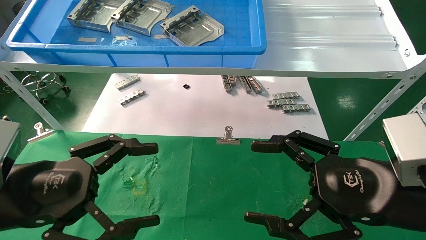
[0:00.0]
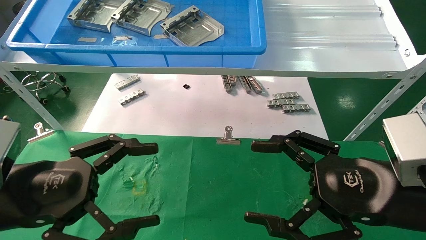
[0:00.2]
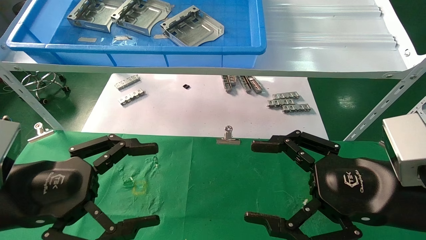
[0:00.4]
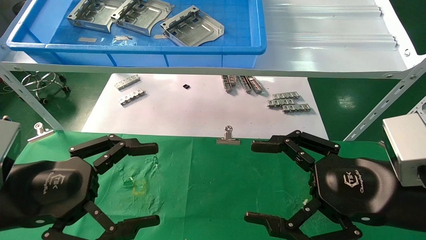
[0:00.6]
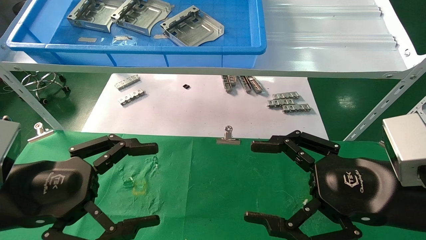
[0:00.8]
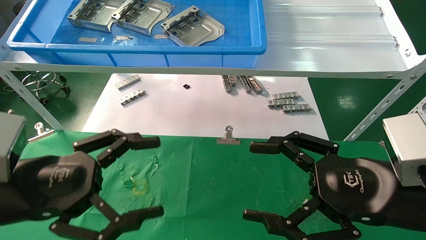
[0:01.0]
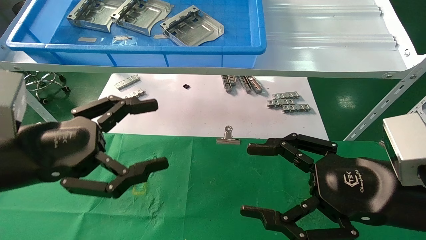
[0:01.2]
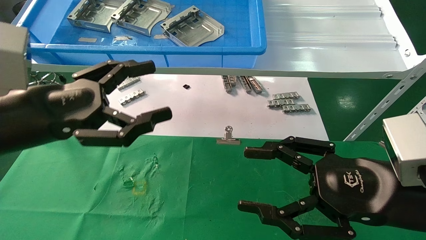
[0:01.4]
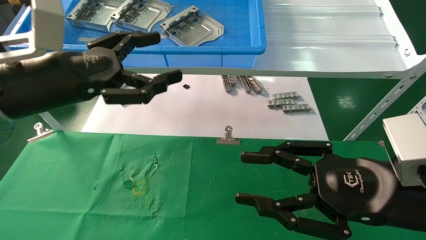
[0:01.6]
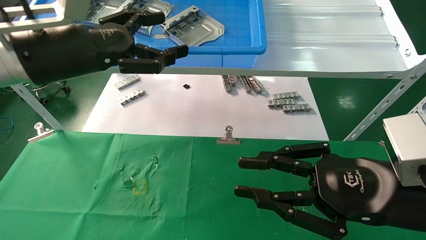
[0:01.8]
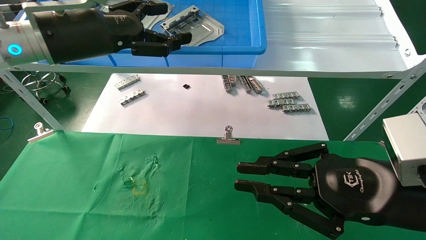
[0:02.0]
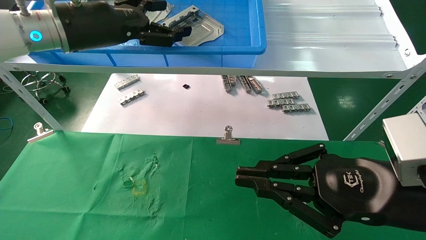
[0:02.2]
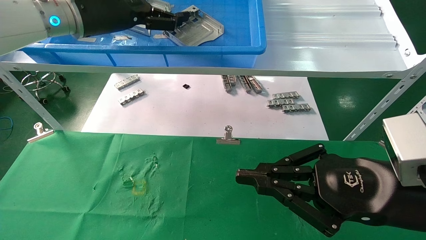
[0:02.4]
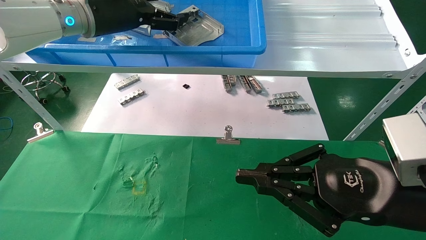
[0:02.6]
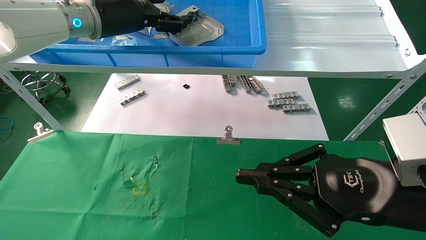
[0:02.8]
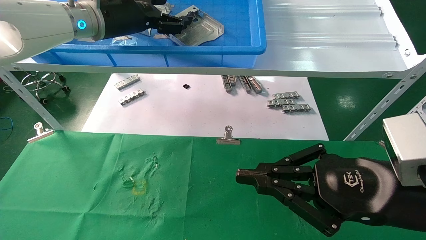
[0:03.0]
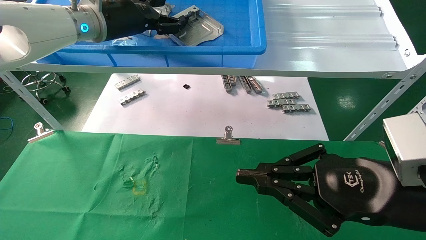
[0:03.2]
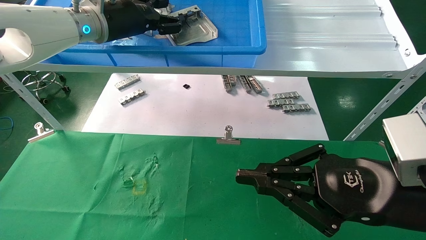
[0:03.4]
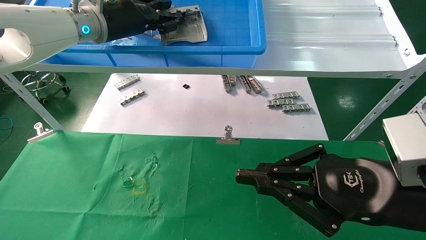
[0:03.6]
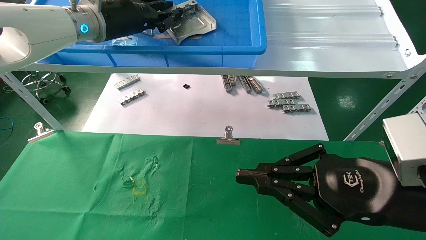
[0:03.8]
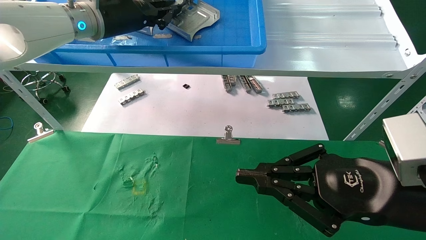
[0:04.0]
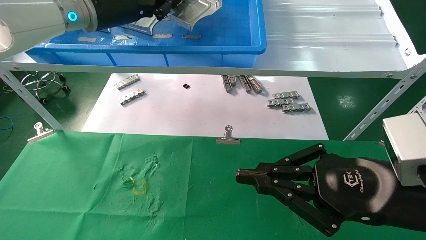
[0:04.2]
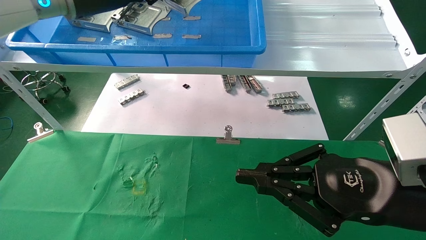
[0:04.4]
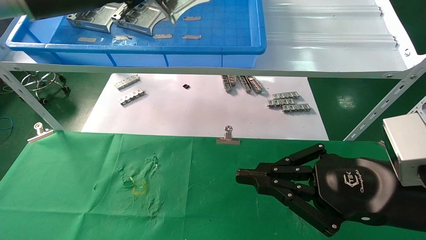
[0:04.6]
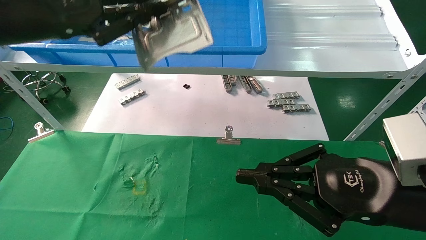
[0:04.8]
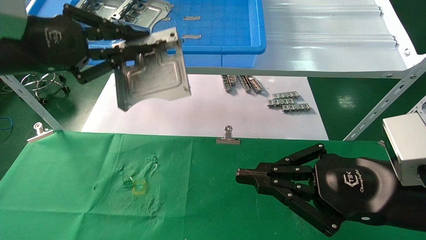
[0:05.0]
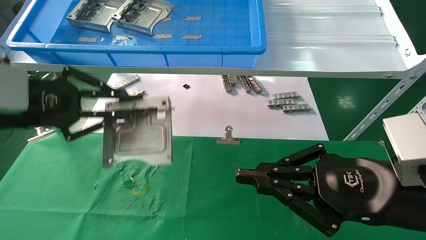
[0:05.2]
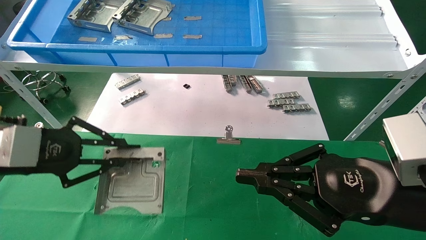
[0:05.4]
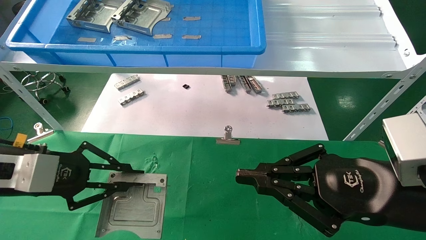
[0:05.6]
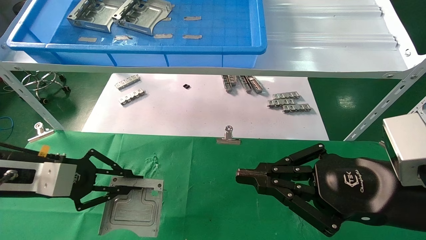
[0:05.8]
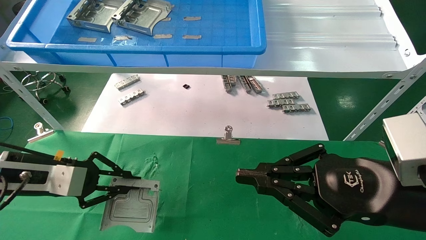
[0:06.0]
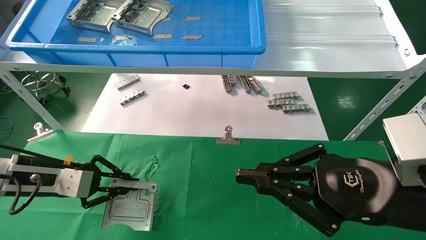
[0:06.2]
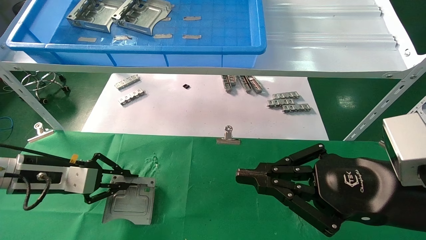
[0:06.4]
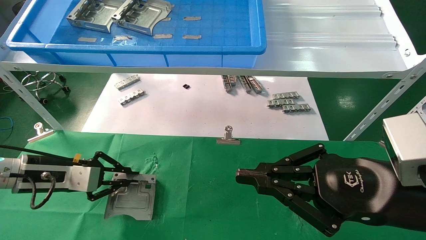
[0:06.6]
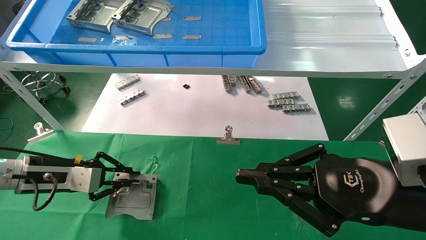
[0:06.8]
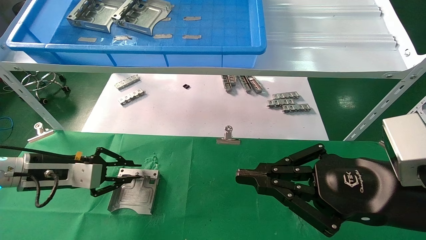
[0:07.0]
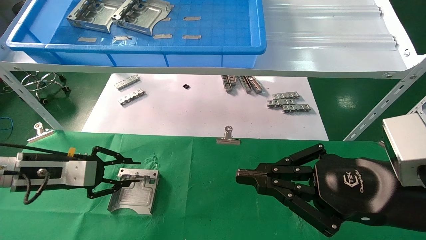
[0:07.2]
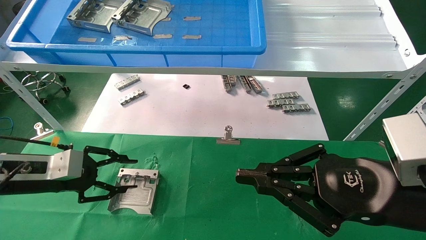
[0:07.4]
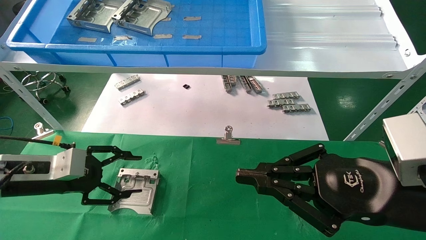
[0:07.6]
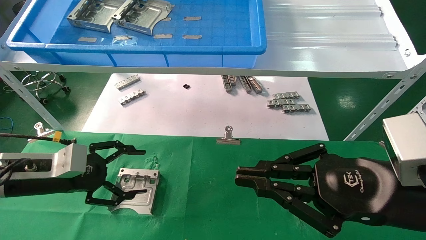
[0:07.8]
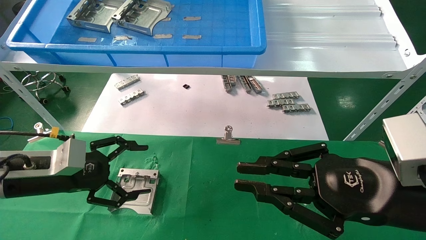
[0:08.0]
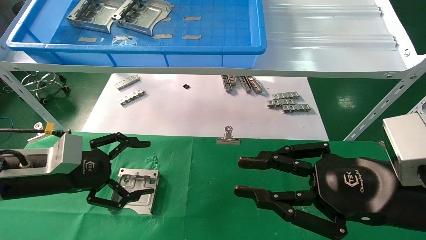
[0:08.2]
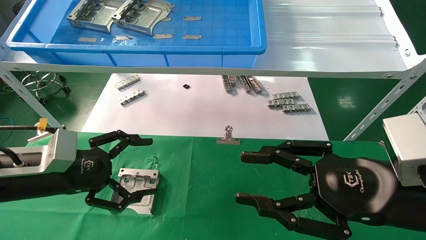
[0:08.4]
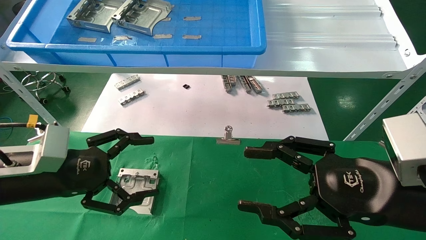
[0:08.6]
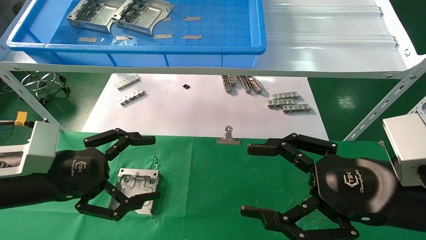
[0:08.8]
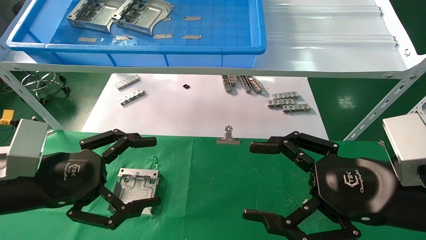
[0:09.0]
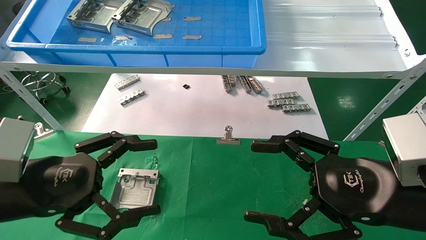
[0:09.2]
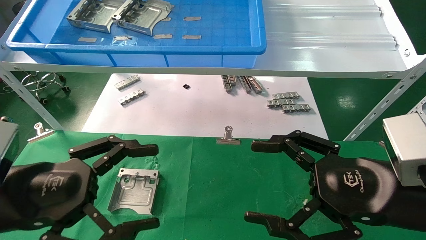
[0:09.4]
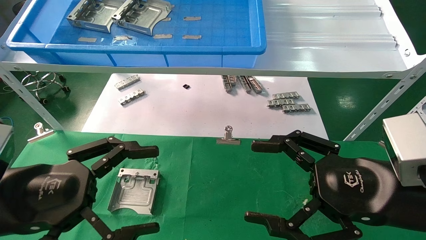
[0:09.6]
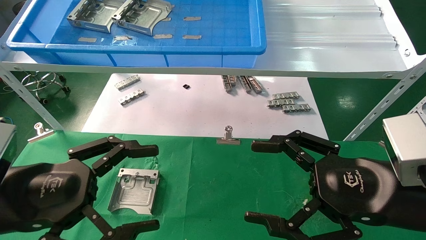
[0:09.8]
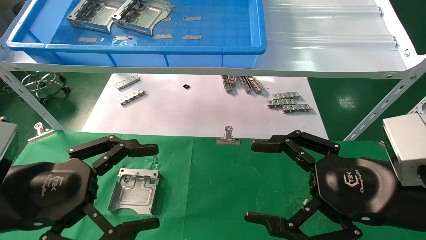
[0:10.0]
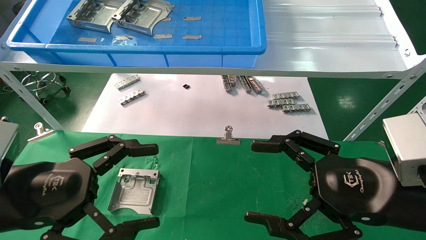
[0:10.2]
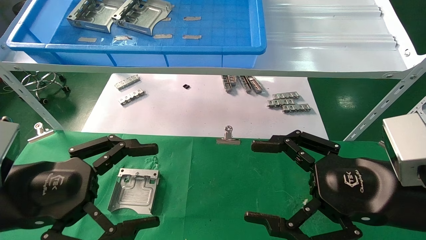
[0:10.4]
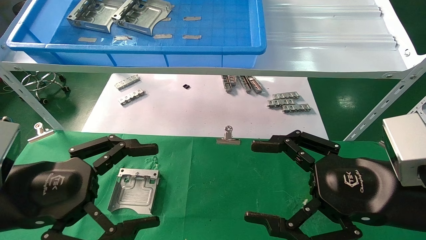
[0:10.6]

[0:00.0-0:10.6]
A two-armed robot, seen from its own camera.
Task of the whole recording: use the mechanical arm to pick up the parts and place them on the table.
Step, 0:01.4 to 0:04.0: Pick up the hard drive bracket from the feeding area.
Step, 0:04.2 to 0:07.0: Place the hard drive bracket into the box.
0:00.0 to 0:01.6: The right gripper closes up. Meanwhile the left gripper travels upward and forward by approximately 15 cm.
0:01.6 to 0:03.0: The right gripper closes up; the left gripper goes approximately 20 cm forward and upward.
0:03.0 to 0:04.6: The left gripper travels backward and to the left by roughly 10 cm, and closes its fingers.
0:04.6 to 0:06.0: The left gripper heads downward, covering approximately 25 cm.
0:06.0 to 0:07.6: The left gripper opens.
0:07.6 to 0:09.0: The right gripper opens up; the left gripper travels backward and to the right by about 10 cm, and opens its fingers.
0:09.0 to 0:10.6: There are only small adjustments of the grippers.

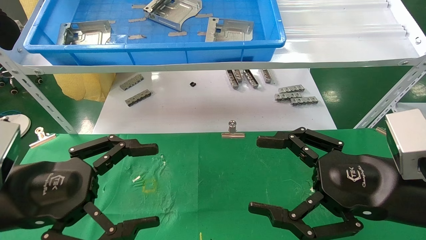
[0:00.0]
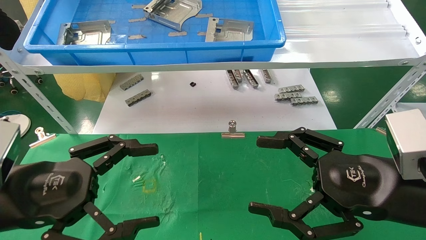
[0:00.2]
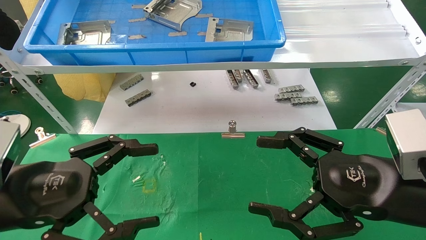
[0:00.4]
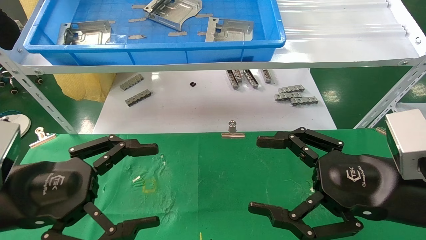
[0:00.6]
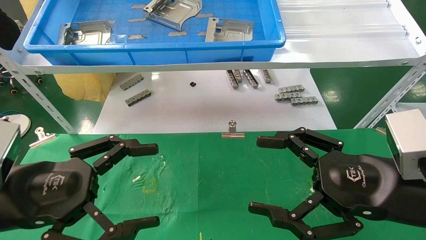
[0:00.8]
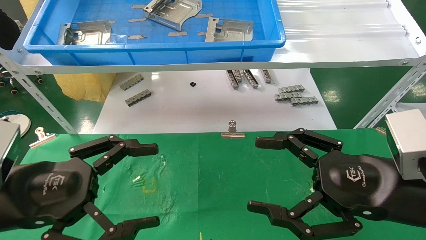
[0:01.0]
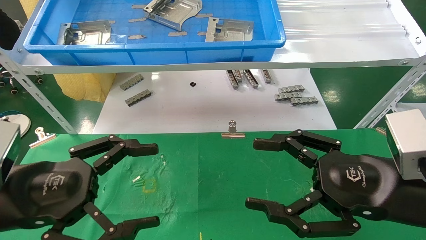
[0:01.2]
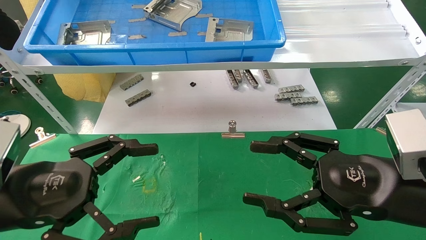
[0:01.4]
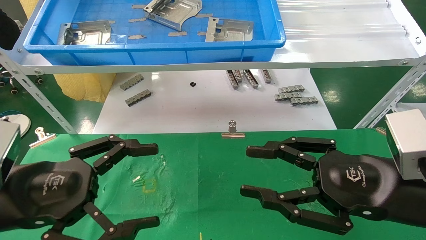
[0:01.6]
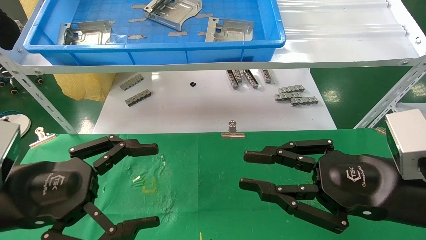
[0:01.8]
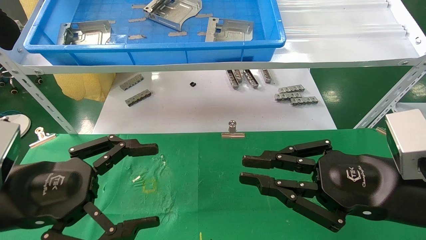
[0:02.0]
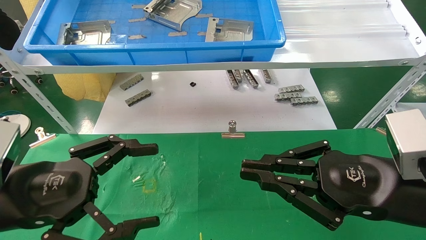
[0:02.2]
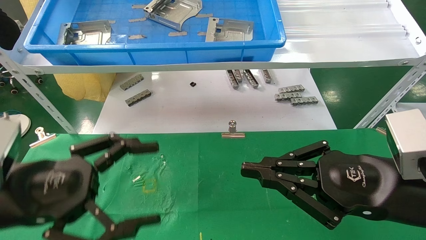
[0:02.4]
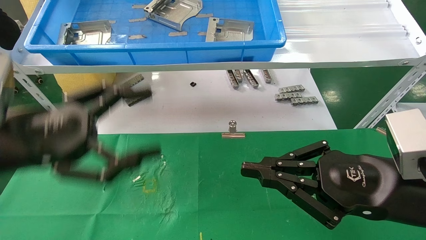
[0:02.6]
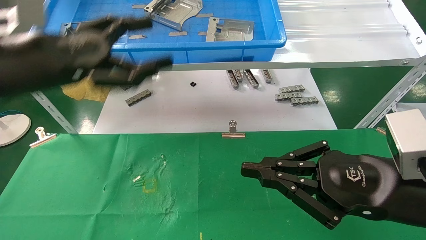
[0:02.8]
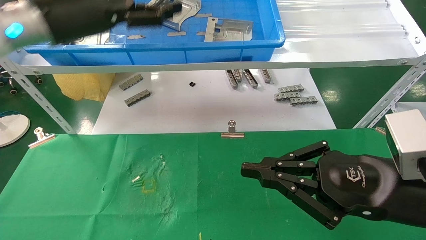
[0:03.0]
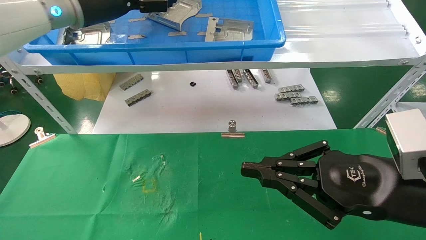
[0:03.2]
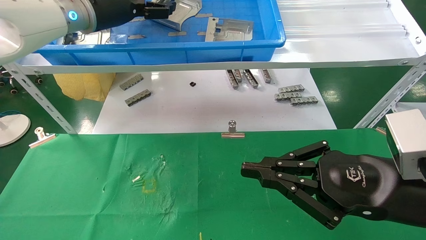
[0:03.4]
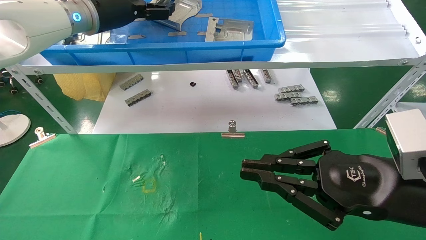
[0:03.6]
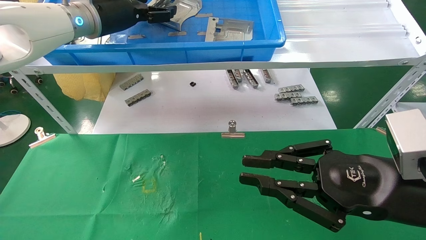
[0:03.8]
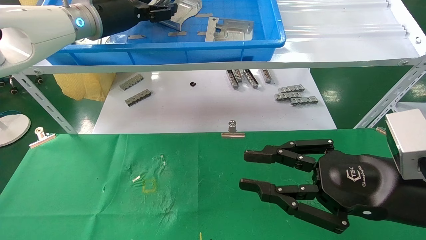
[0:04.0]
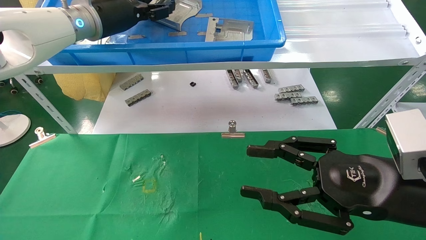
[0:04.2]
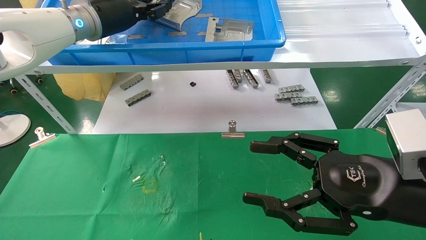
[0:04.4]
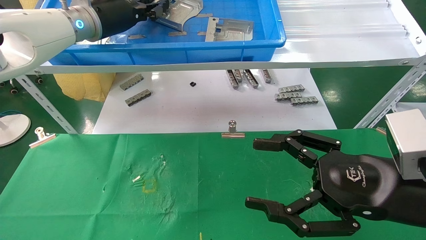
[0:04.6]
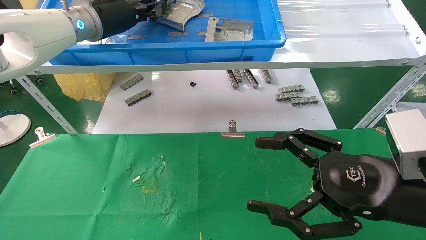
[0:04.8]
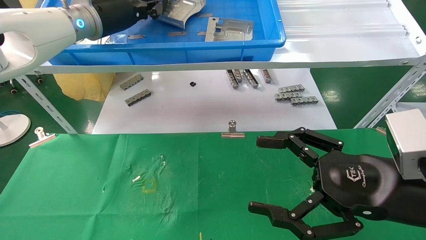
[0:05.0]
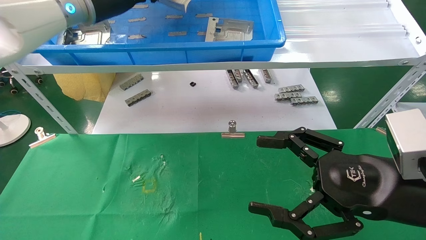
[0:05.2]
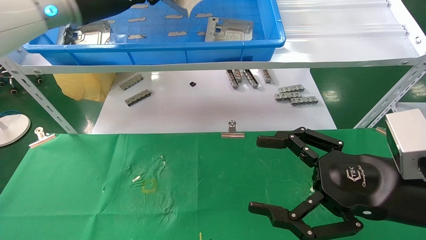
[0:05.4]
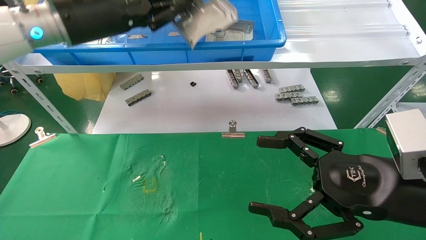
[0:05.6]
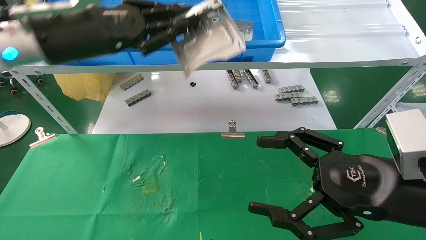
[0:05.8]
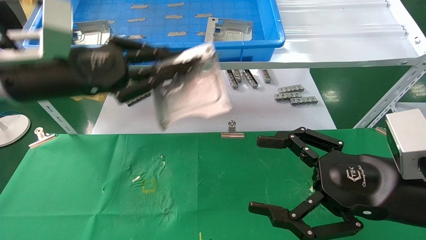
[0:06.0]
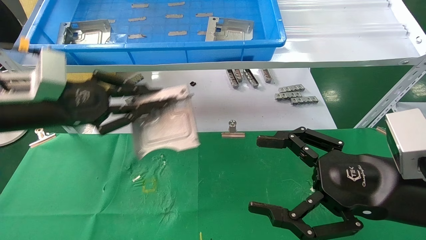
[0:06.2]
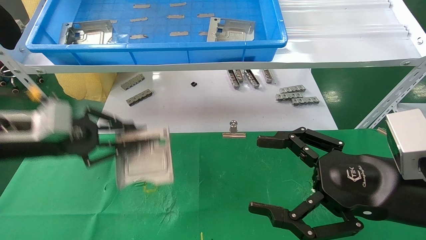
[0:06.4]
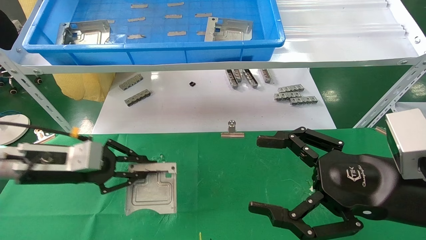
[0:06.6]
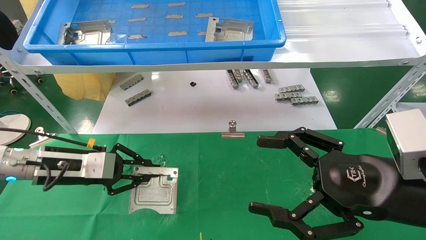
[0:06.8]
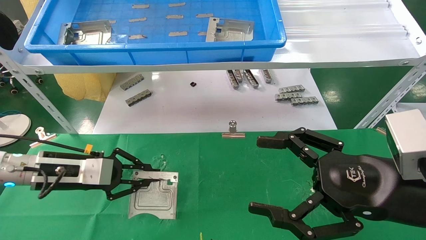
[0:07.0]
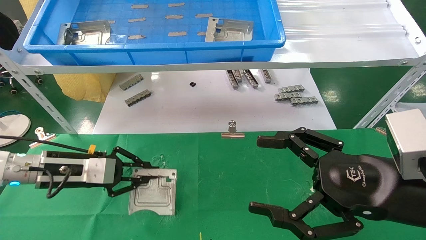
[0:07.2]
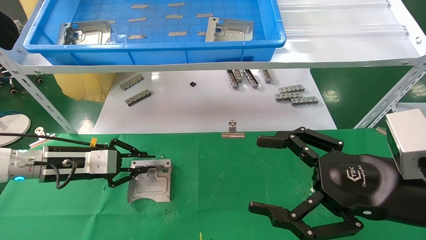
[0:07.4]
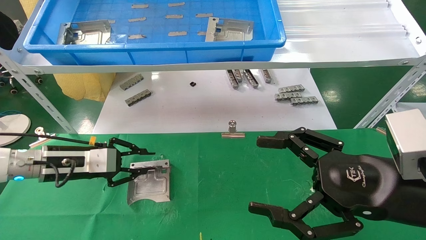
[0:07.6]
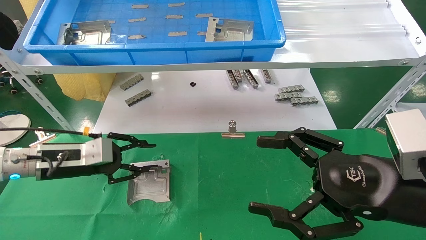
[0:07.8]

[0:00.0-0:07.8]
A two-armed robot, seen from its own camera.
Task of the whole recording: use the mechanical arm to pick up the parts and place them on the table.
Step, 0:02.4 to 0:04.6: Pick up the hard drive bracket from the feeding area.
0:00.0 to 0:01.6: The right gripper closes its fingers.
0:01.6 to 0:03.2: The left gripper is displaced forward and upward by approximately 30 cm. Meanwhile the right gripper closes up.
0:03.2 to 0:04.6: The left gripper closes its fingers; the right gripper opens.
0:04.6 to 0:06.2: The left gripper travels downward, backward and to the left by approximately 20 cm.
0:06.2 to 0:07.8: The left gripper goes approximately 15 cm downward.
